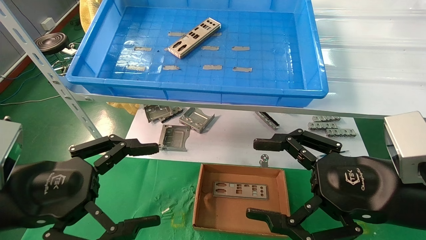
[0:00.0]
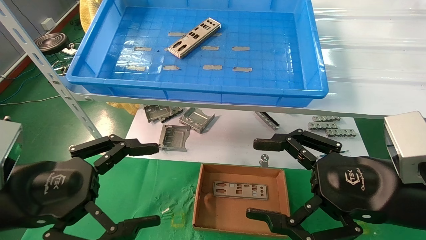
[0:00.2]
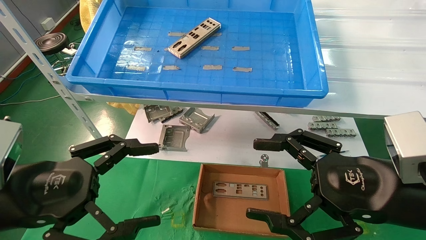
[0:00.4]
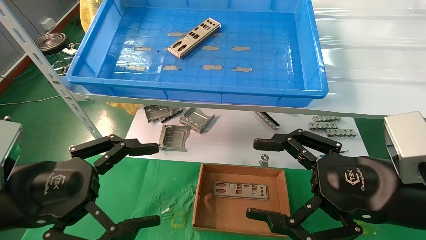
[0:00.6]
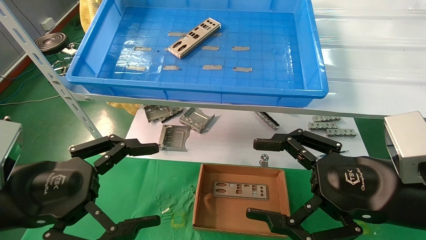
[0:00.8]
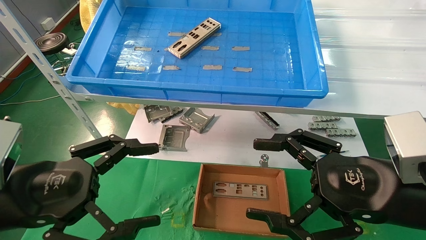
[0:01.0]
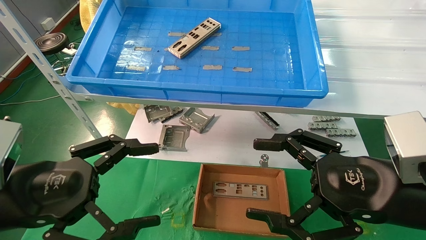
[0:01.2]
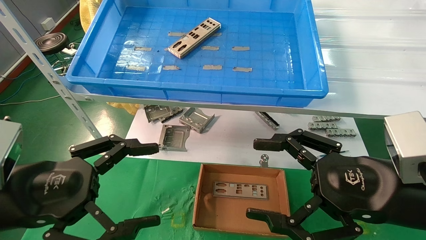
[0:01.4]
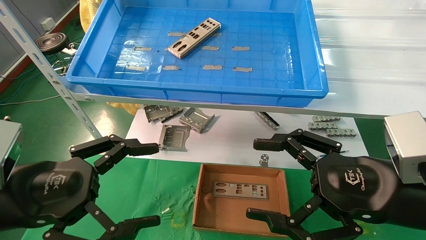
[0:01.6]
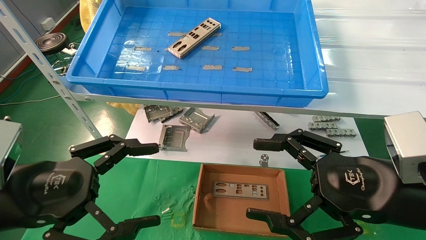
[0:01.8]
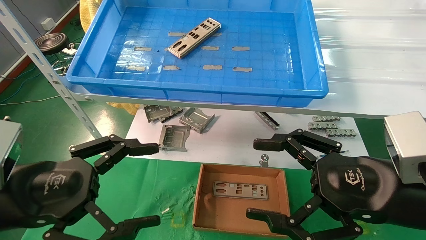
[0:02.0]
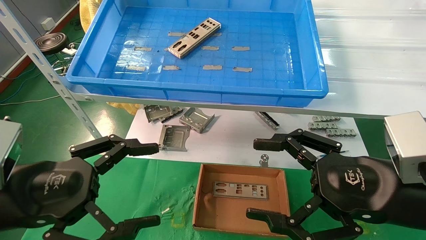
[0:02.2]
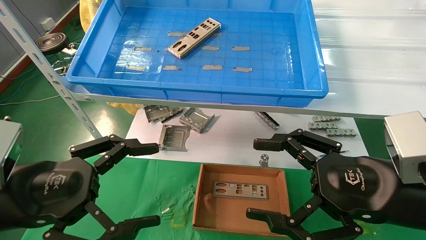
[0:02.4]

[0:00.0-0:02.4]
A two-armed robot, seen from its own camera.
Task of the whole recording: pick up the parts on the tray and put them in the cardboard box.
0:00.0 to 0:02.4: The two grippers keep their place.
